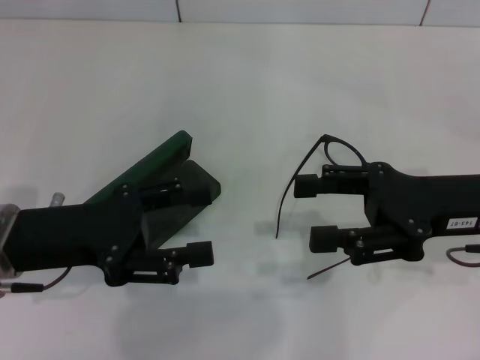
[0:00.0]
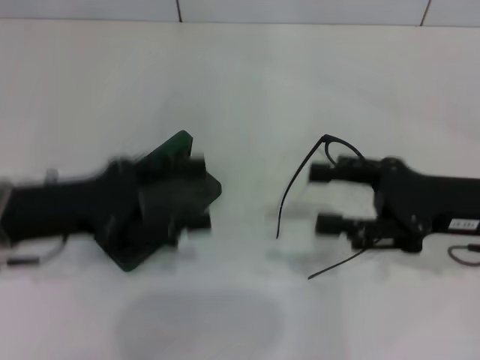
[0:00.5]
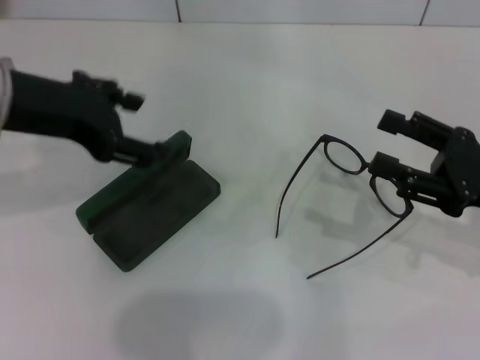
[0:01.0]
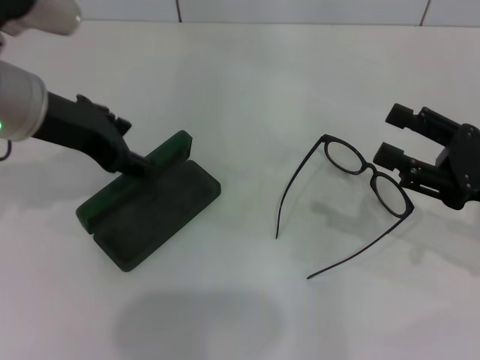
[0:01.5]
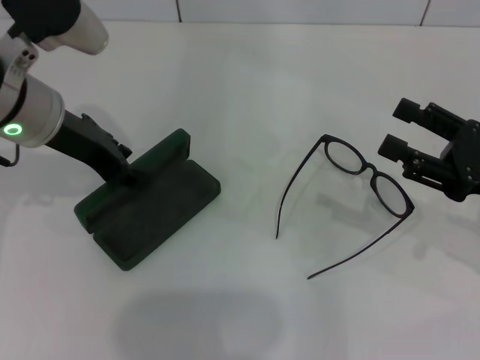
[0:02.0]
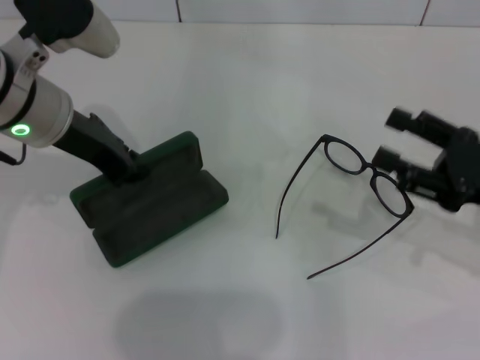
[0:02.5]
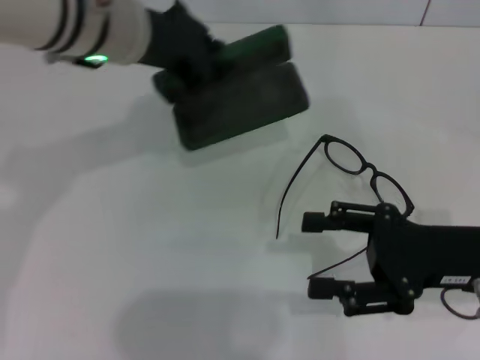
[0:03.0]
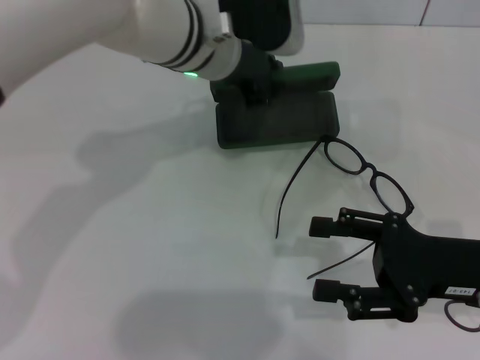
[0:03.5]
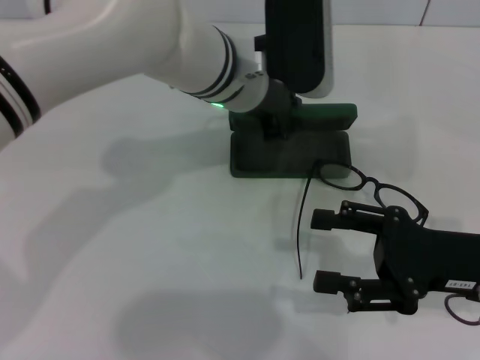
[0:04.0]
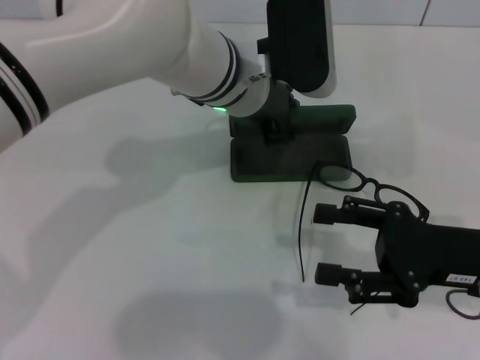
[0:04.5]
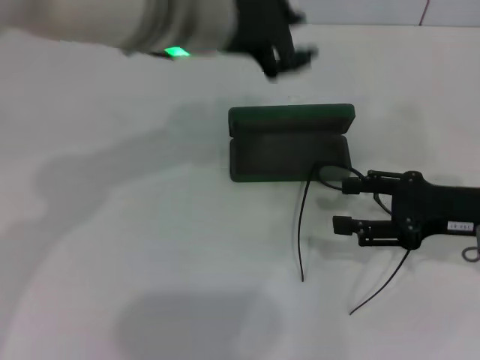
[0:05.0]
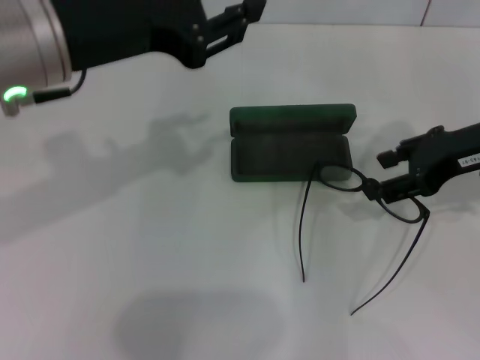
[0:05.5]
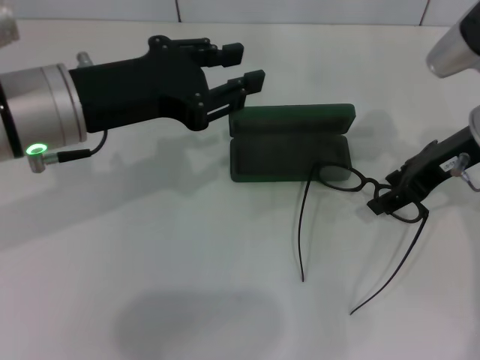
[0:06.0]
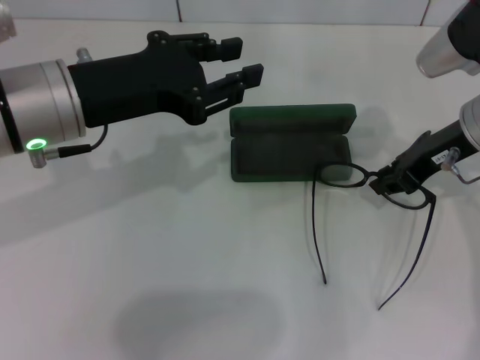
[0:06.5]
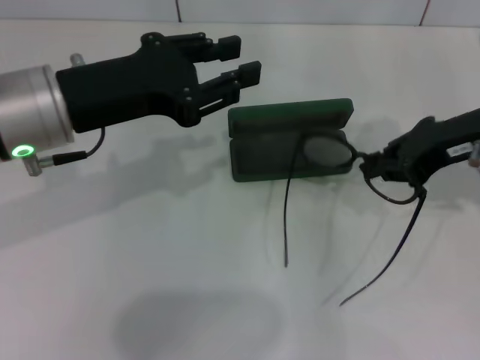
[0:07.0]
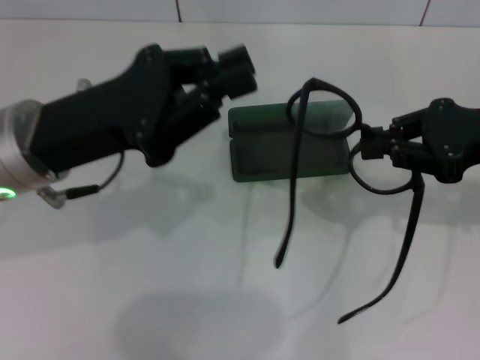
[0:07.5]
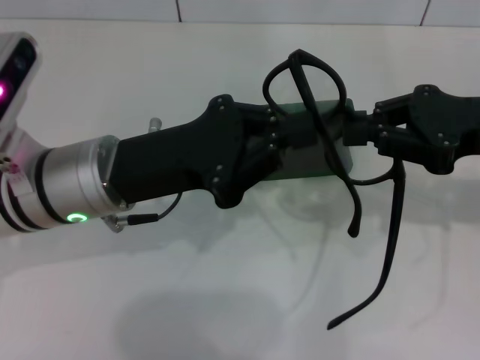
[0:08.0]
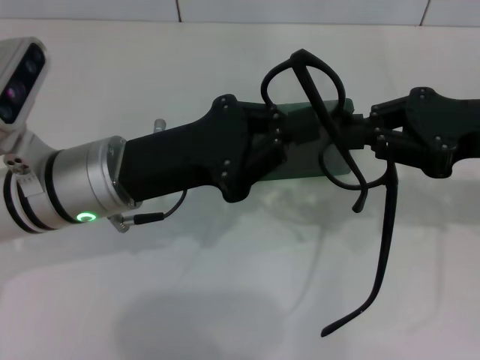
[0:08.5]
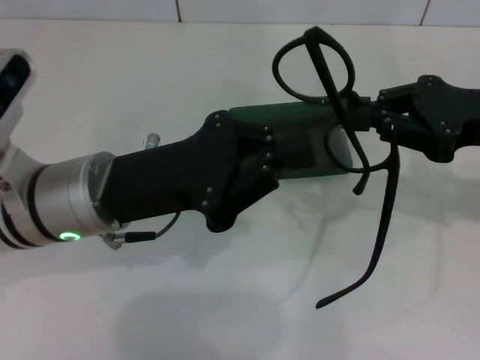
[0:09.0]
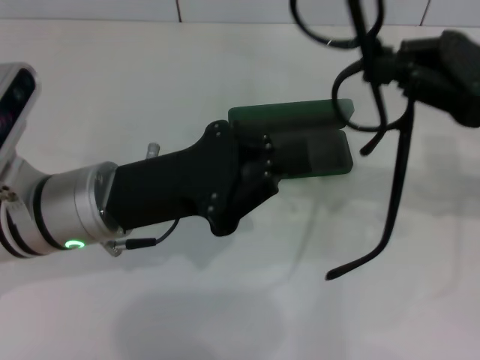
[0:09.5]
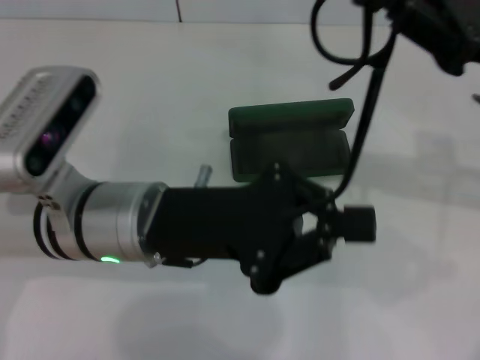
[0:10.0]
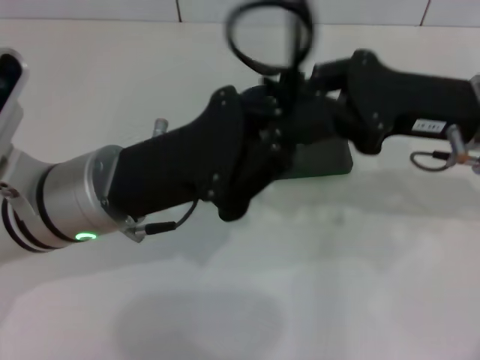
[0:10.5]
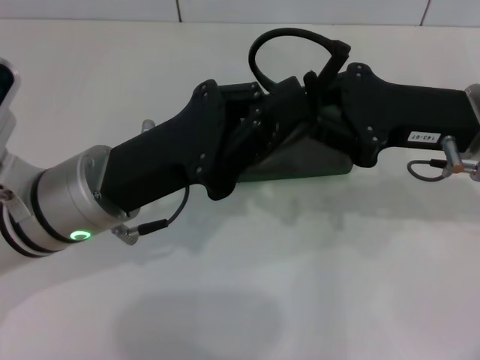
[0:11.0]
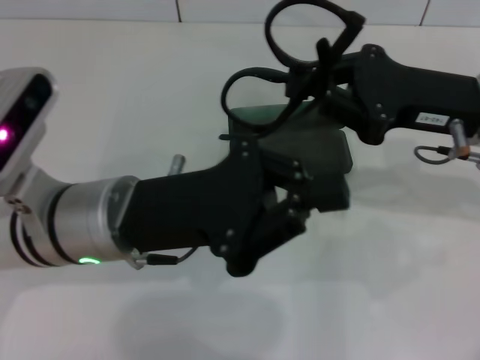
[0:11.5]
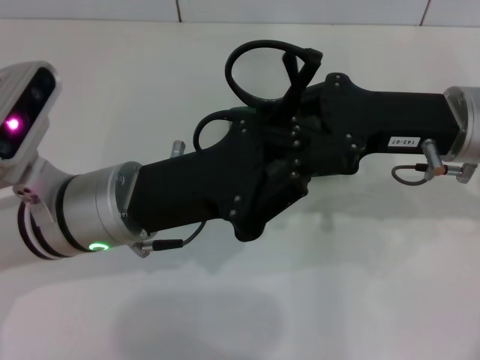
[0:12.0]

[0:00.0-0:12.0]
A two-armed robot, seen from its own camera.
Step, 0:00.0 to 0:02.0: Grab the glasses case with your left hand.
Step, 0:02.5 to 0:04.0: Place the glasses case in the center of the table with your left hand.
Step, 0:04.5 to 0:06.5: Grab the eyeglass frame with your right hand.
Step, 0:07.0 to 0:10.5: Fold the frame with your left hand.
0:00.0 to 0:02.0: The right gripper travels to the right by approximately 5 cm, while the left gripper heads forward and upward, covering about 15 cm.
0:02.0 to 0:04.0: The left gripper shifts about 15 cm to the right, and closes its fingers, while the right gripper ends up approximately 5 cm from where it was.
0:04.0 to 0:06.0: The left gripper shifts about 20 cm to the left and backward; the right gripper shifts some 15 cm forward and upward.
0:06.0 to 0:08.0: The right gripper shifts approximately 5 cm backward, and closes its fingers; the left gripper heads downward, covering roughly 5 cm, and closes its fingers.
0:10.0 to 0:12.0: The right gripper moves to the left, approximately 5 cm.

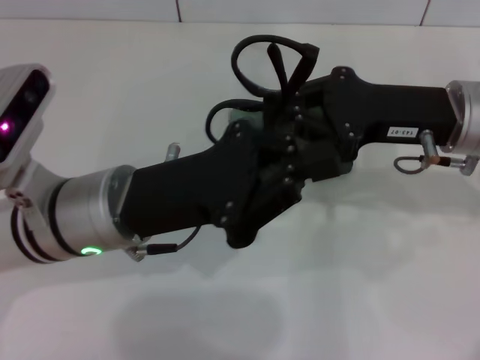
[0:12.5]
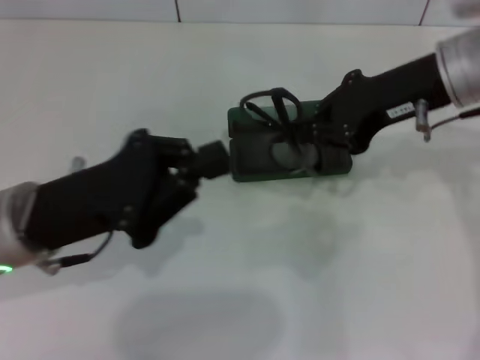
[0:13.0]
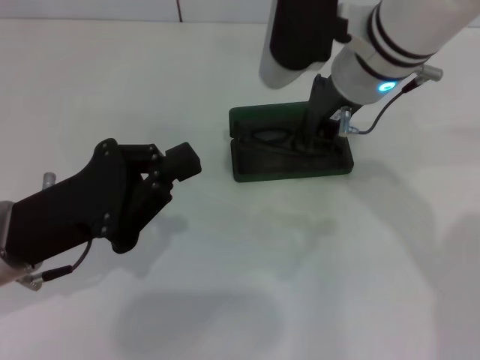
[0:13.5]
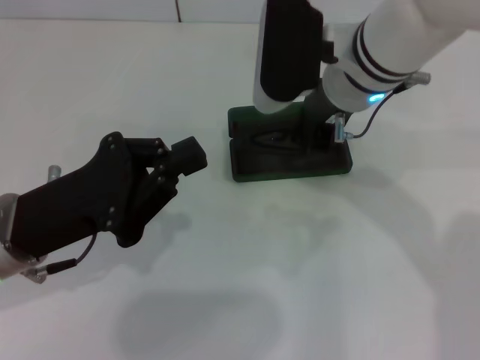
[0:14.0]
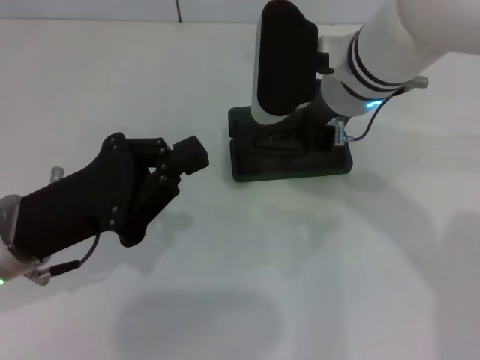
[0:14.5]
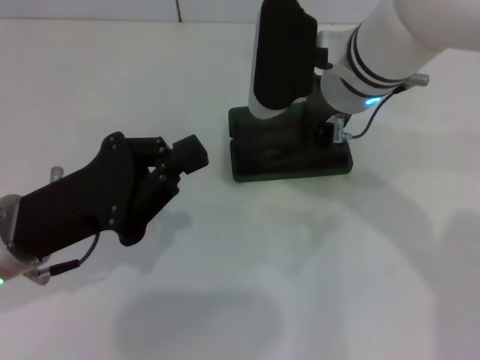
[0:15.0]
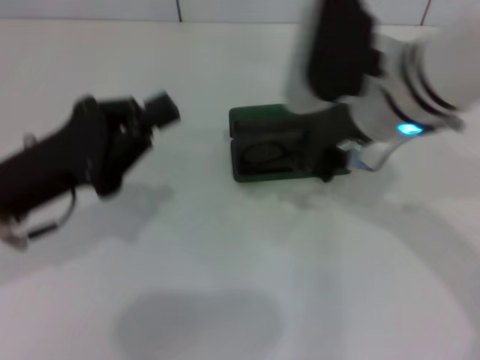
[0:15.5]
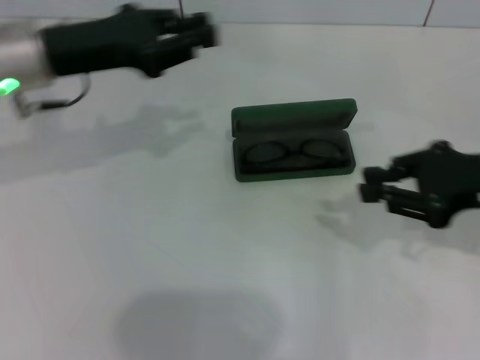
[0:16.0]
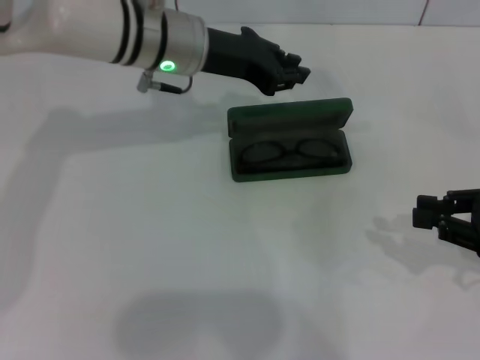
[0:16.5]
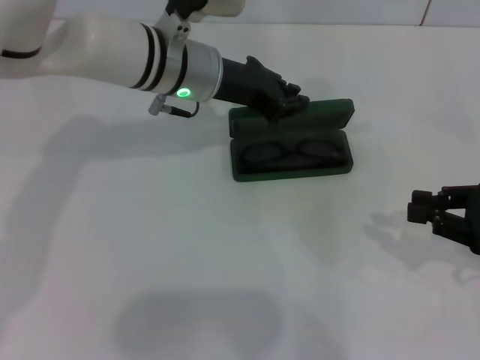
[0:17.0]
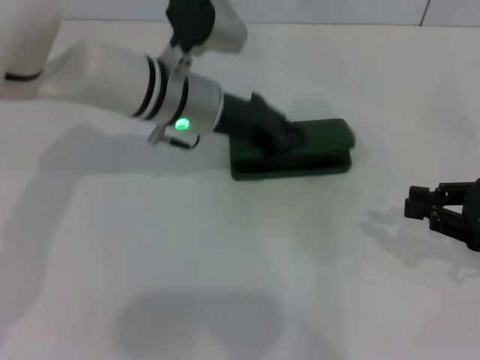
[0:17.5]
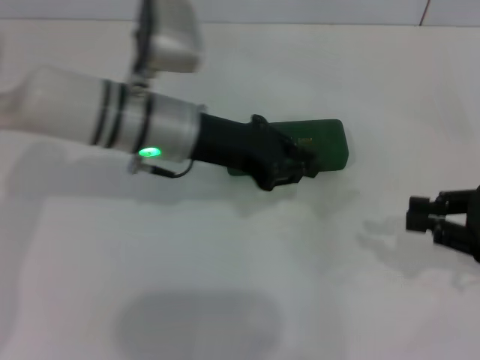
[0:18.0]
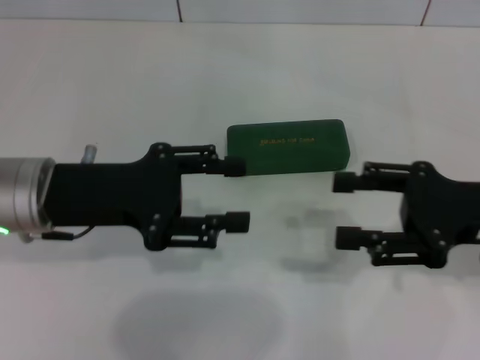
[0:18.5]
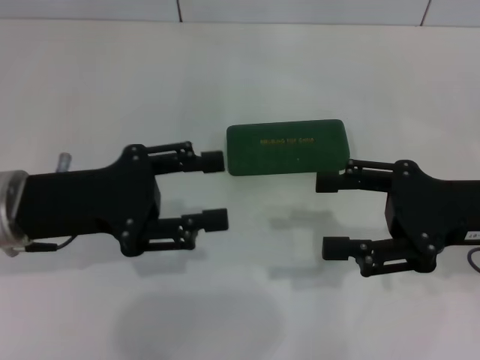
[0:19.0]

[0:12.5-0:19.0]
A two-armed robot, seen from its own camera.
Step, 0:12.5 to 0:15.0: Put the glasses into the case with your right hand.
Step, 0:15.5 to 0:17.5: Close the glasses case with your left hand.
0:12.5 to 0:14.5: The right gripper is displaced to the left by roughly 10 cm; the left gripper is displaced to the left by approximately 10 cm.
0:14.5 to 0:17.0: The left gripper moves forward and to the right, about 25 cm, while the right gripper shifts approximately 30 cm to the right and backward.
0:17.0 to 0:19.0: The left gripper shifts roughly 20 cm backward and to the left, and opens its fingers. The right gripper shifts about 10 cm to the left, and opens.

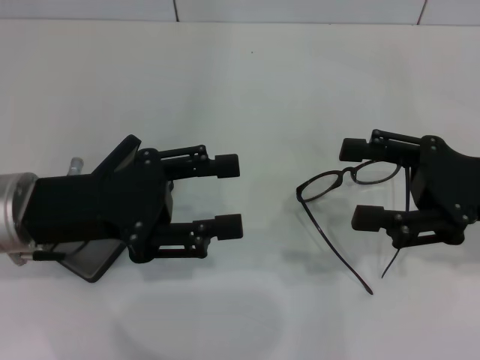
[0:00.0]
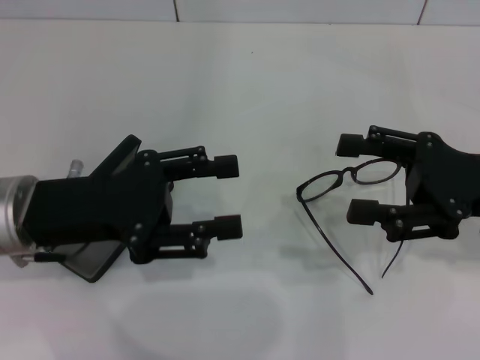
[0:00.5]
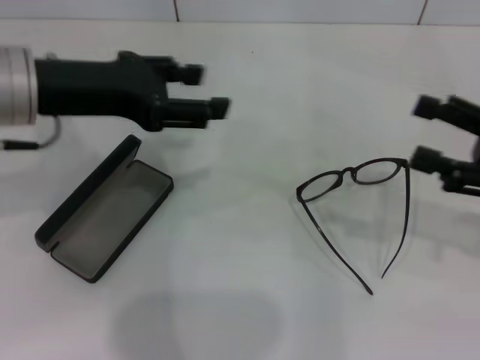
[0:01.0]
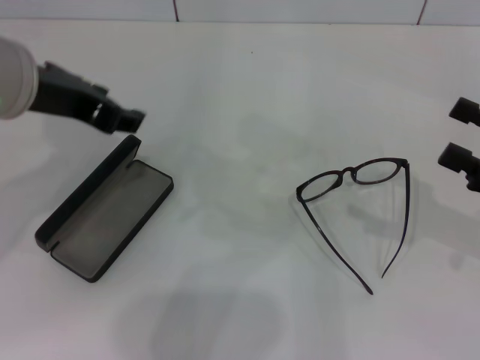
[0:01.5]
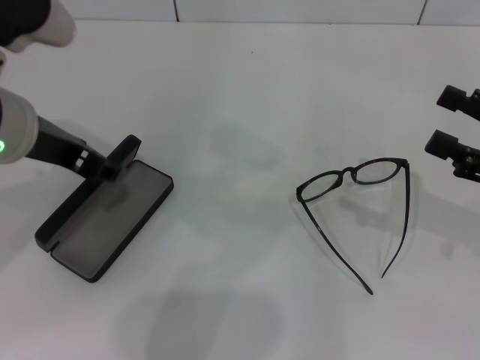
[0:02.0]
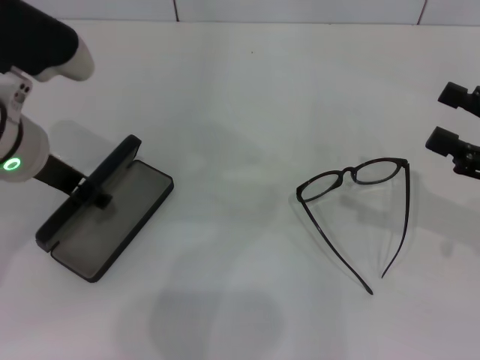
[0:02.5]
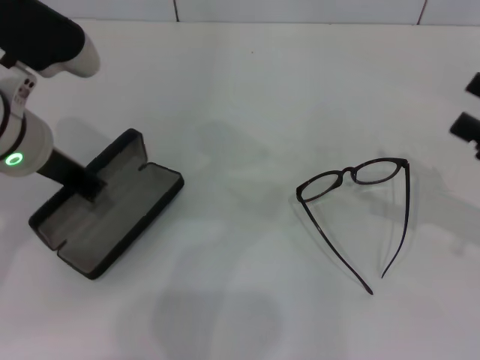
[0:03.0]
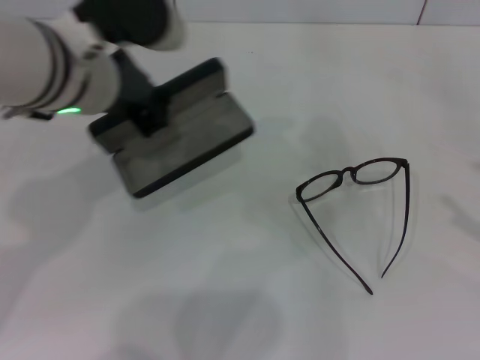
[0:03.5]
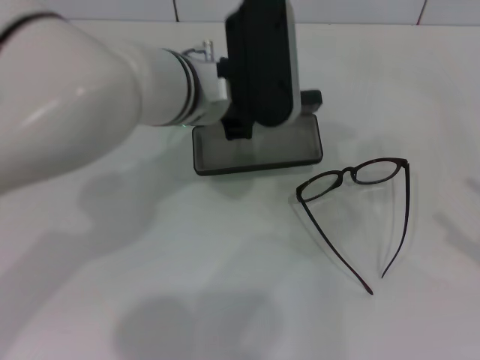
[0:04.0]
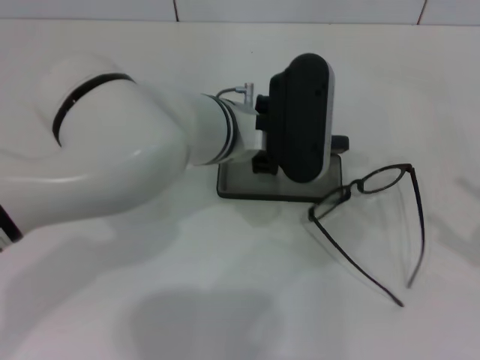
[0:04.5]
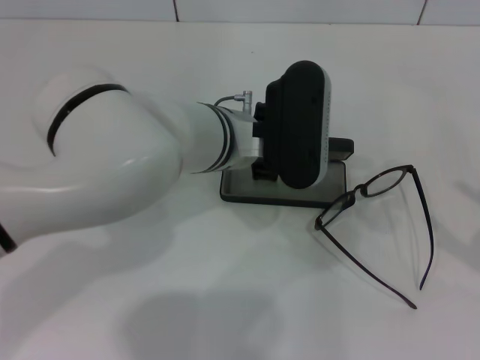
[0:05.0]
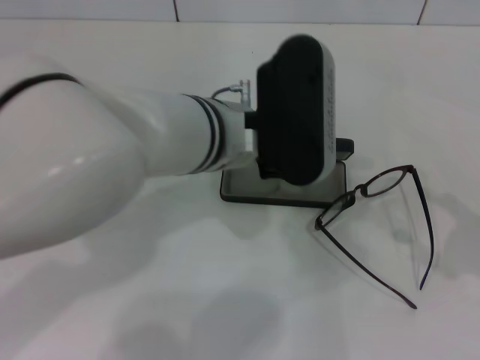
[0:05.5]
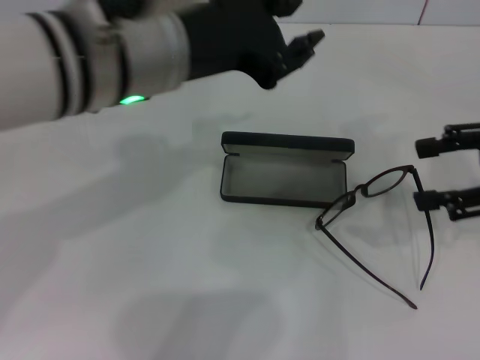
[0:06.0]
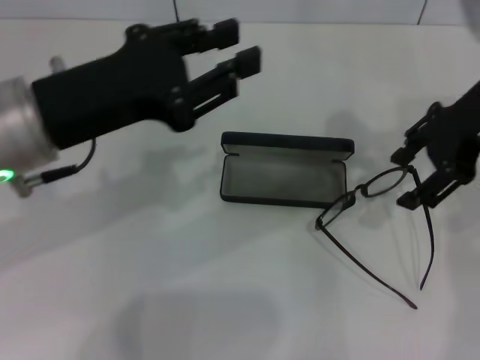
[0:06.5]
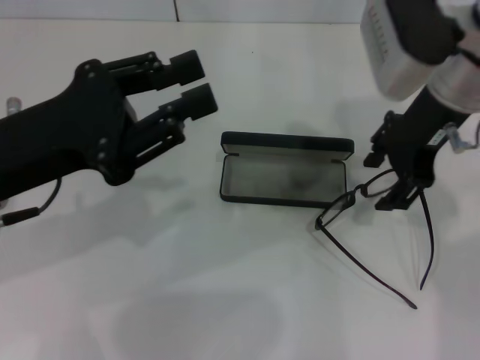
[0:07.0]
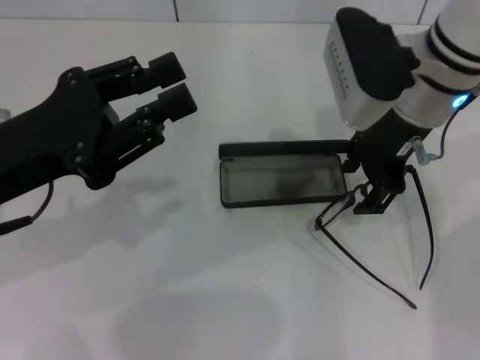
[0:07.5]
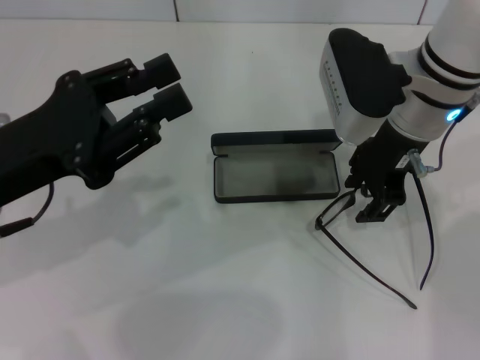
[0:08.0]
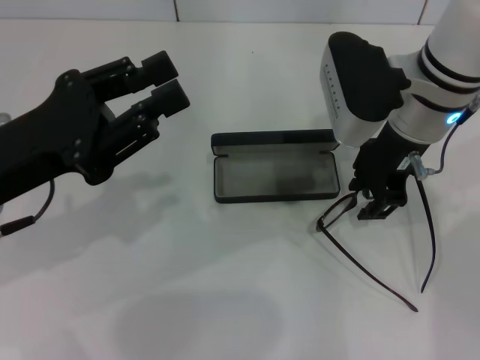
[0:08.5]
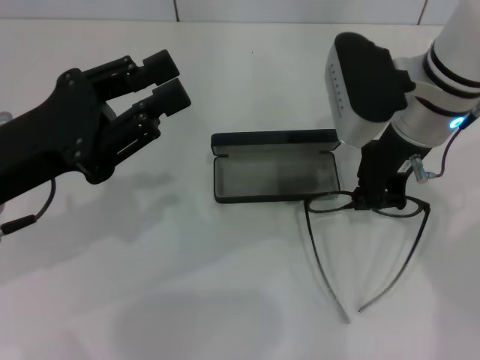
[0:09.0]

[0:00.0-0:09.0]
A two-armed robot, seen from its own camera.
Step, 0:00.0 to 0:02.5: Grab the glasses case with your left hand.
Step, 0:03.0 to 0:05.0: Place the glasses case in the center of the table with your left hand.
Step, 0:05.5 to 0:08.5: Grab the eyeglass frame with your right hand.
0:00.0 to 0:02.0: The right gripper heads to the right, covering roughly 5 cm; the left gripper is displaced upward by roughly 5 cm.
0:02.0 to 0:04.5: The left gripper moves to the right and downward, about 20 cm, and closes its fingers. The right gripper travels backward and to the right by some 10 cm.
0:04.5 to 0:07.0: The right gripper goes roughly 30 cm to the left, forward and upward. The left gripper is displaced to the left and backward by about 20 cm, and opens up.
0:07.0 to 0:09.0: The right gripper ends up some 5 cm from where it was, and closes.
